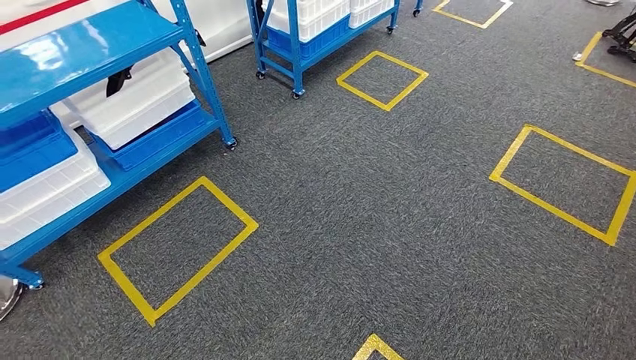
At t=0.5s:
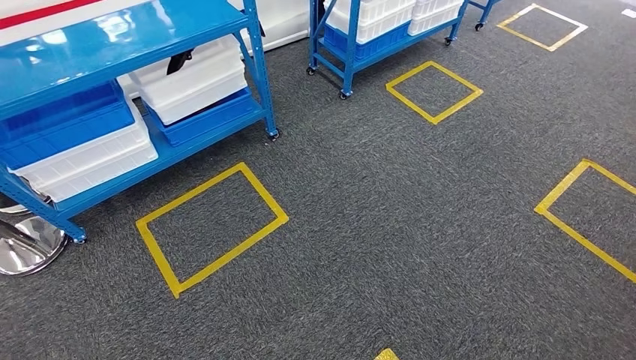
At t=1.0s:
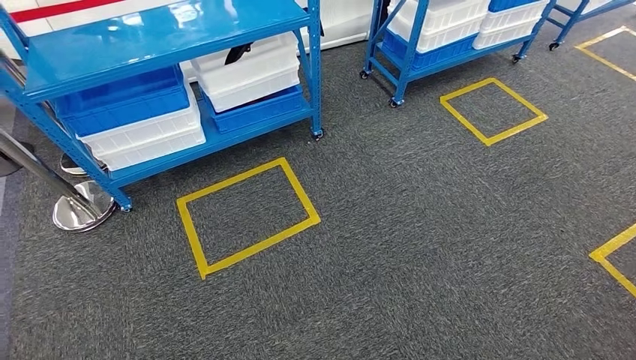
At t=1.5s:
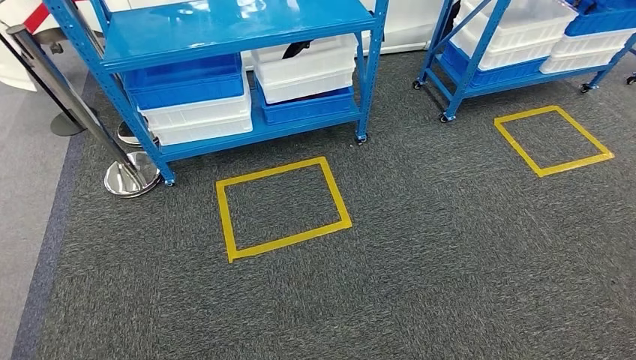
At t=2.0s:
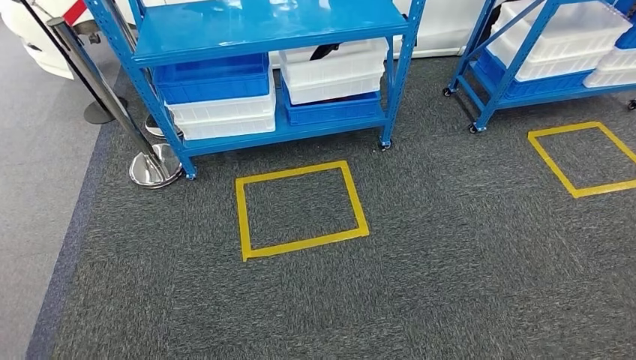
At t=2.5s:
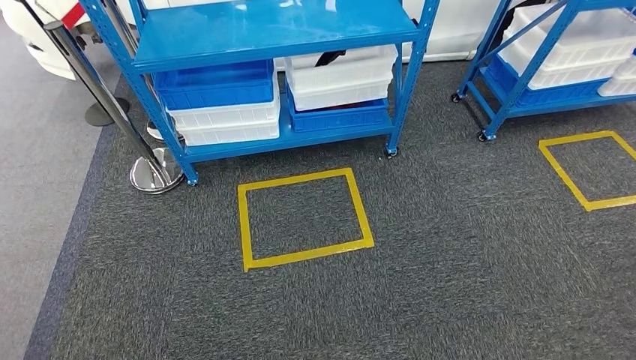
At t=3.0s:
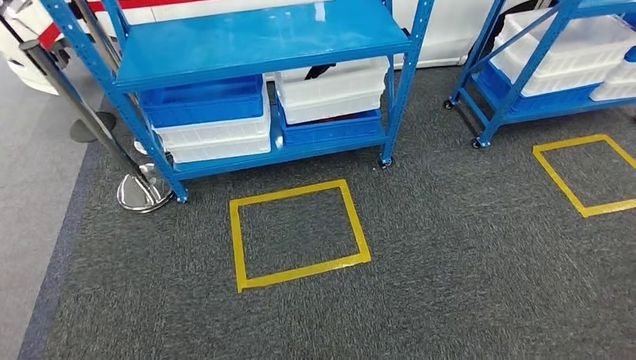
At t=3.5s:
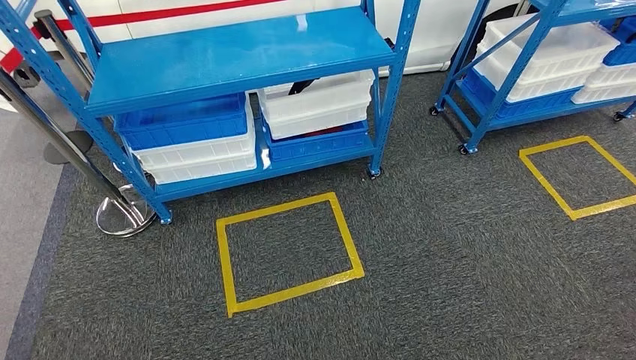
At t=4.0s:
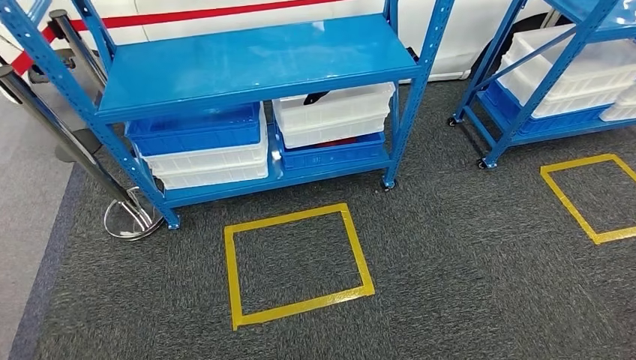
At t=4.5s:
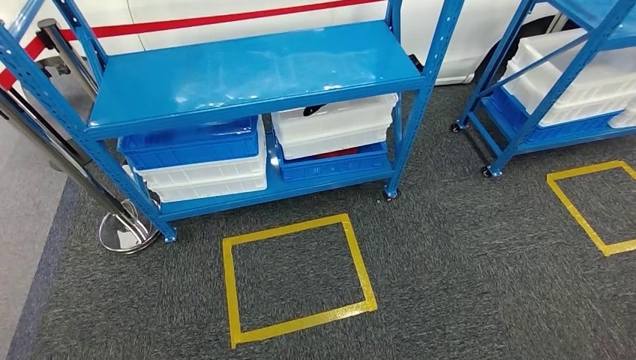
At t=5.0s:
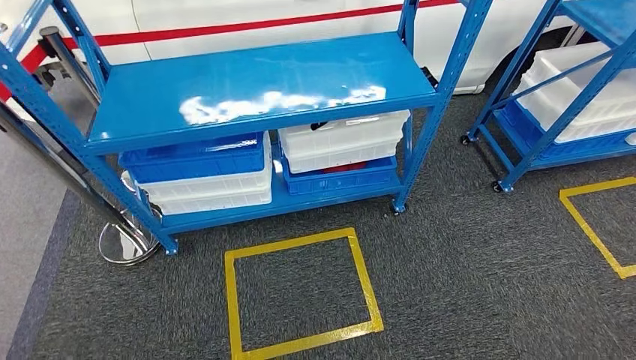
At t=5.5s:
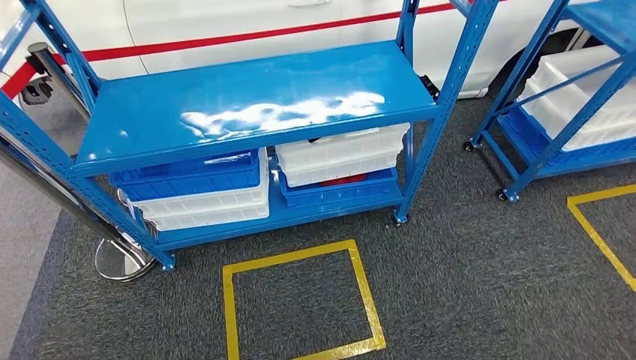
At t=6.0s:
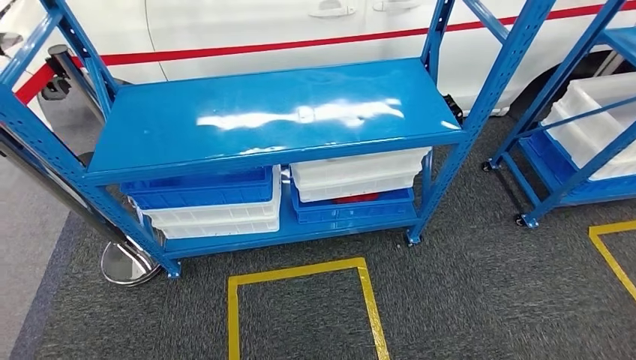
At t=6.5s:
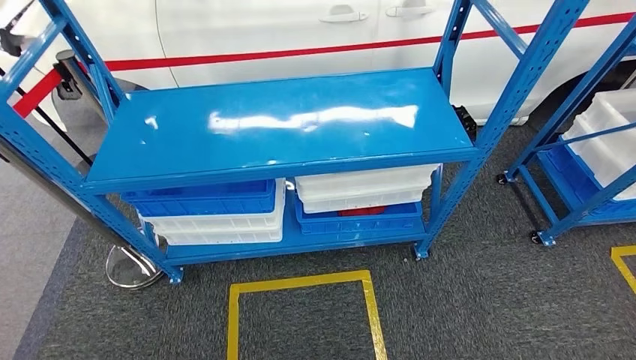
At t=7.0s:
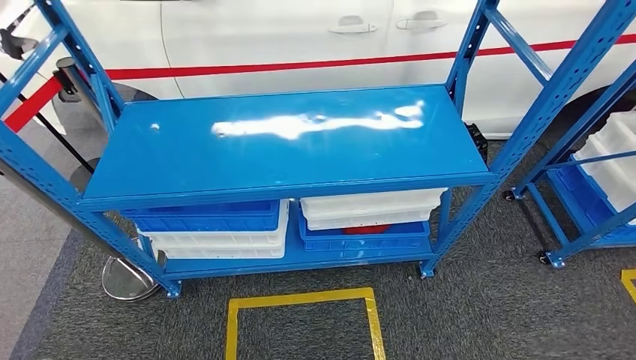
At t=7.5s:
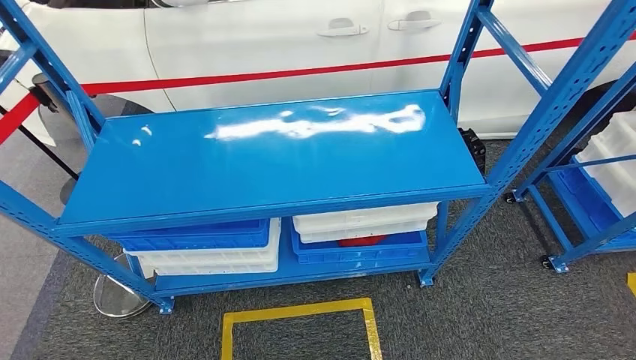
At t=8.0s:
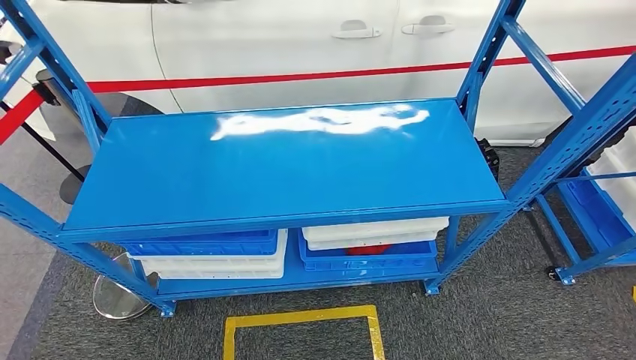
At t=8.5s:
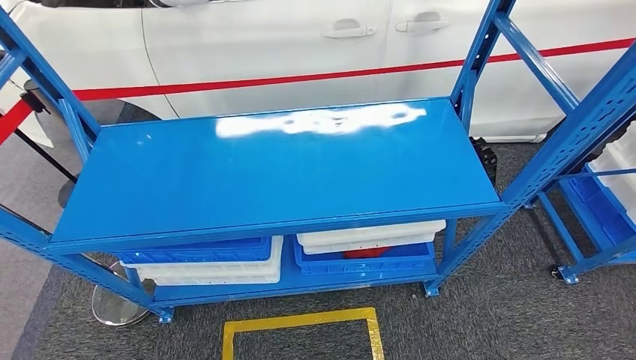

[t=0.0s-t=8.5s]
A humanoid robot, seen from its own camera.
Step, t=0.0s to t=8.5s: Move to the initial position of the shelf.
